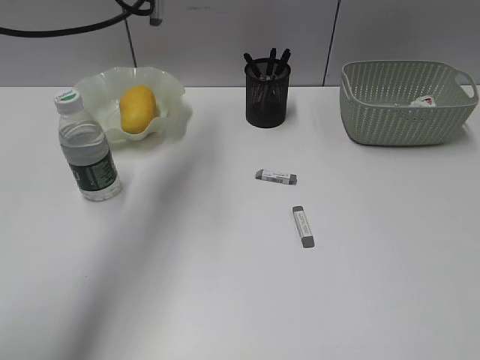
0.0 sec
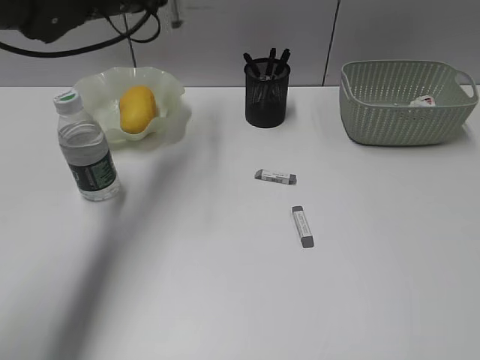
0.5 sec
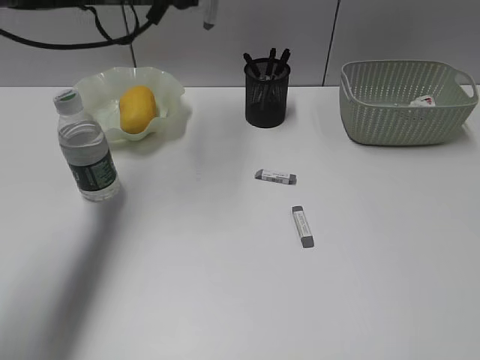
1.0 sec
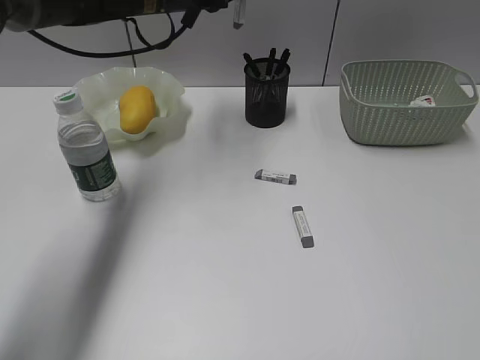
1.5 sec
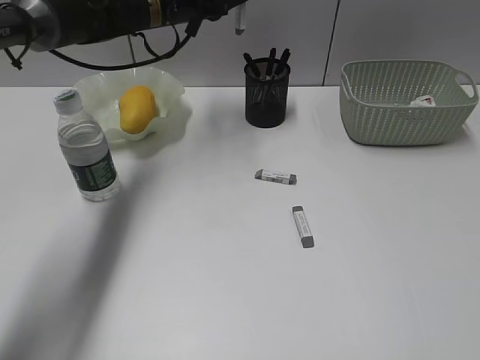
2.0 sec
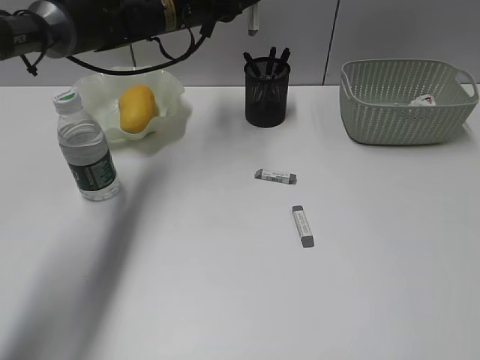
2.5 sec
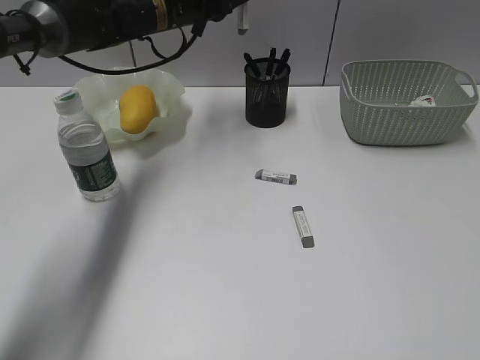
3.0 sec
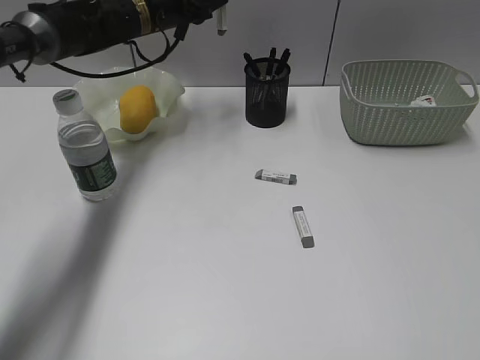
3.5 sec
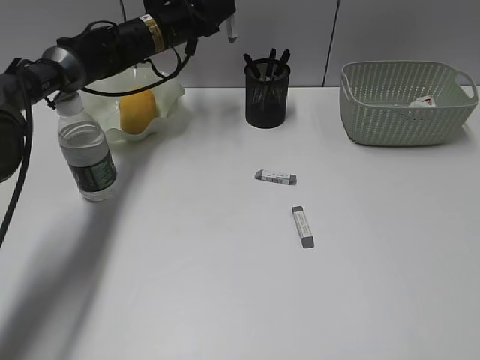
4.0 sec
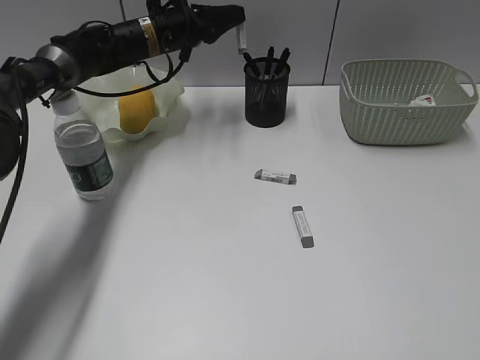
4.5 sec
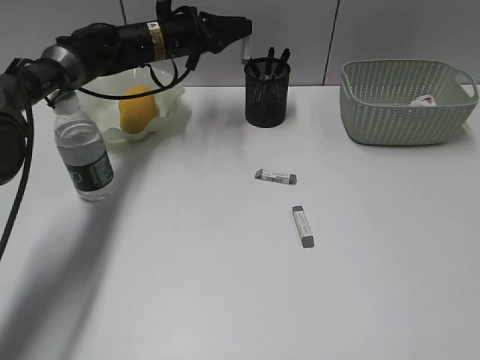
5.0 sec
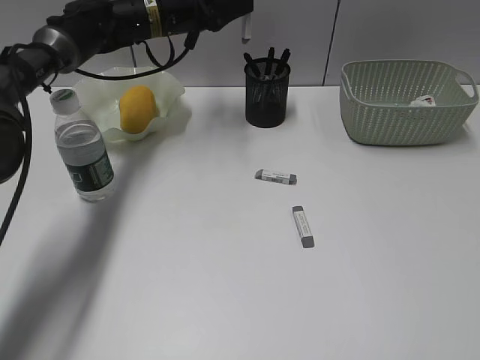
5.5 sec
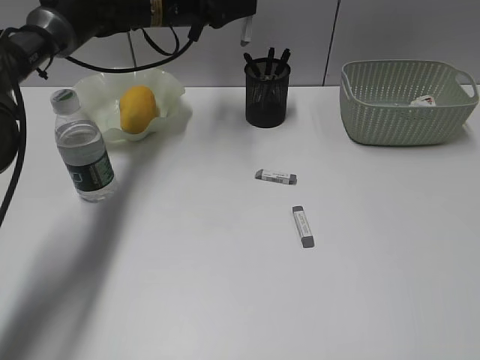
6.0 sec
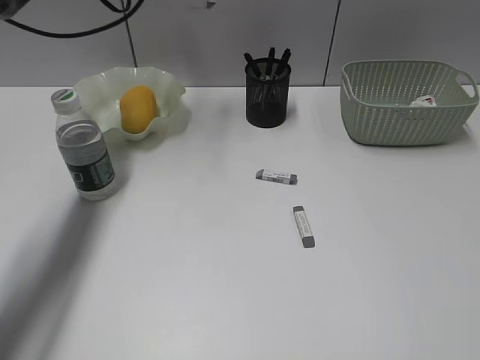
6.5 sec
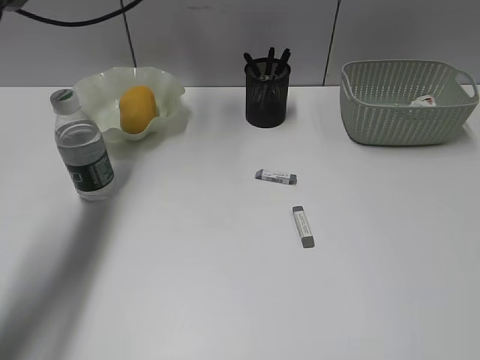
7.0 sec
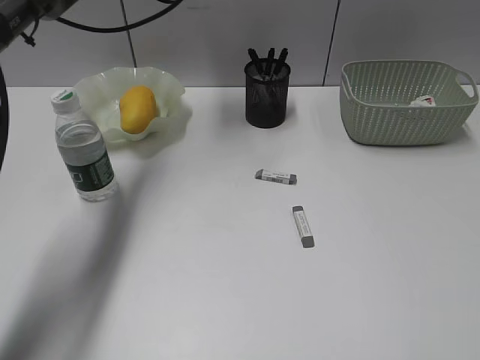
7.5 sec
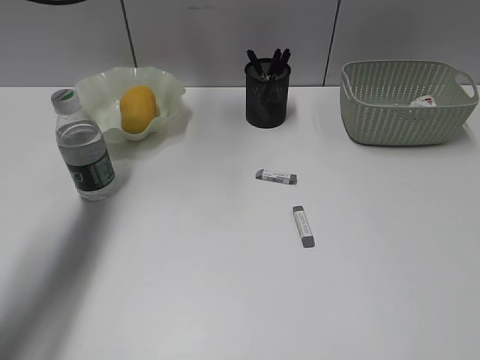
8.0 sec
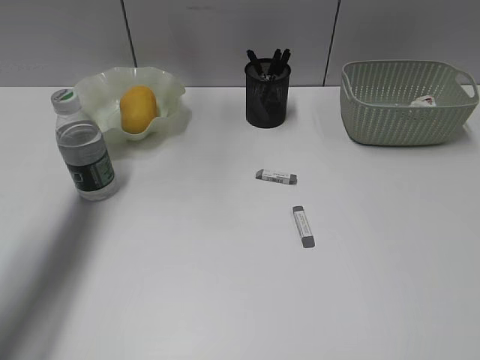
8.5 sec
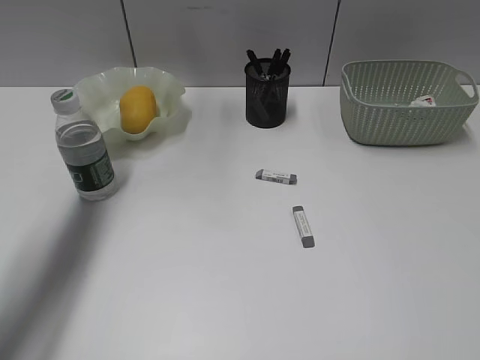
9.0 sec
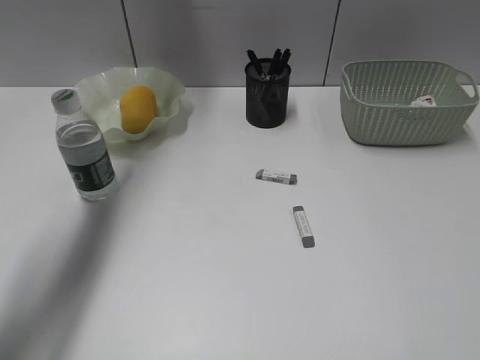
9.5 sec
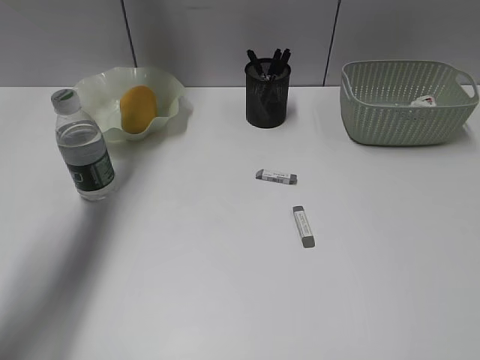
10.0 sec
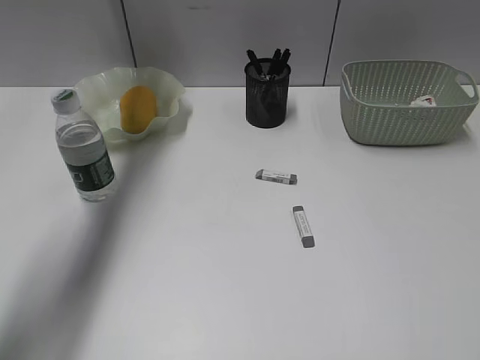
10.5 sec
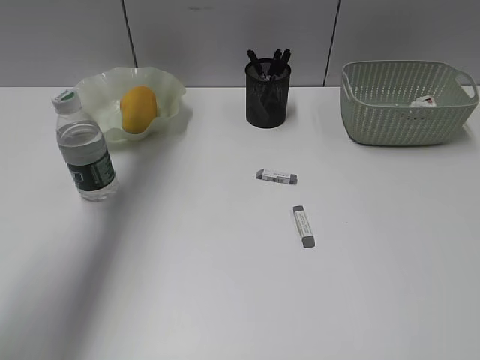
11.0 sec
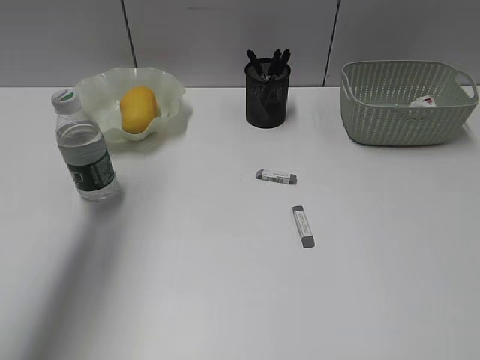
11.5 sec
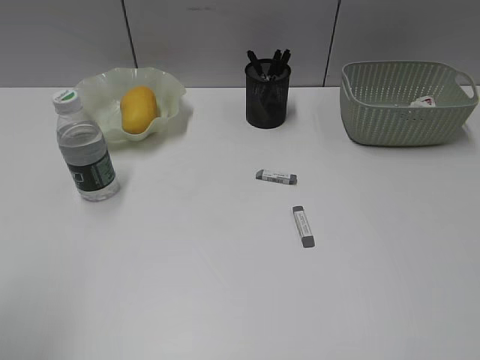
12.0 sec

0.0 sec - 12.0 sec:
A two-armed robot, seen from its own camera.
Step, 0.0 sec - 7.5 sec: Place the eraser in pen holder with left gripper.
0.0 sec - 2.0 sec: The left gripper travels forward and downward by approximately 15 cm.
2.0 sec - 4.0 sec: The left gripper heads downward, covering about 5 cm.
4.0 sec - 6.0 sec: The left gripper ends up about 5 cm from where it was.
6.0 sec - 8.0 sec: The left gripper is displaced upward by some 10 cm, and opens, then closes once more.
8.0 sec - 10.0 sec: The left gripper moves to the left, some 5 cm, and closes its fingers.
10.0 sec - 12.0 sec: The left gripper shifts about 50 cm backward, and opens up.

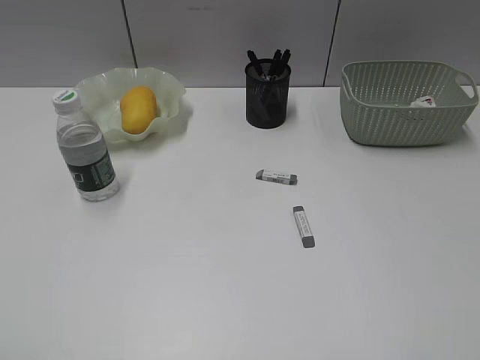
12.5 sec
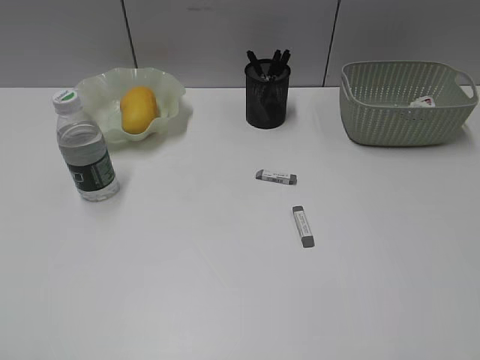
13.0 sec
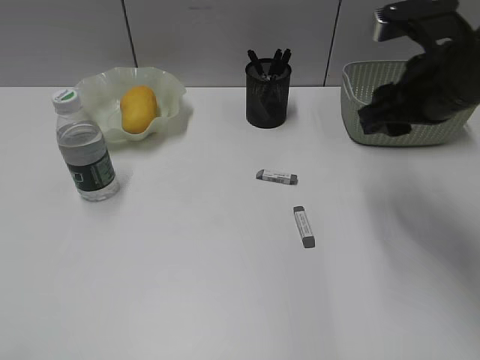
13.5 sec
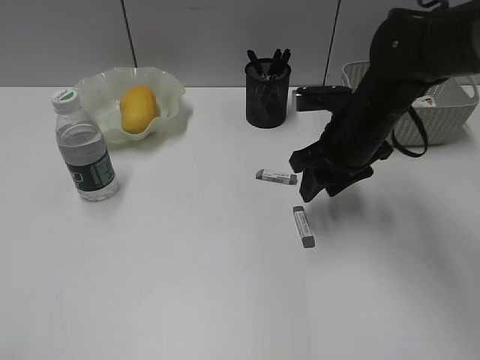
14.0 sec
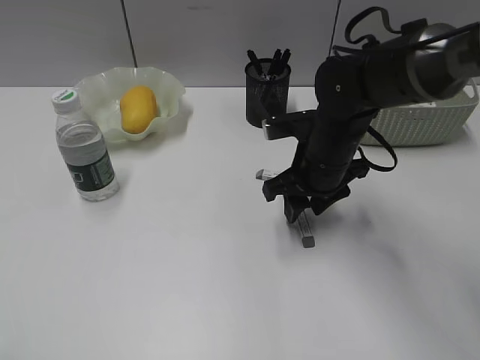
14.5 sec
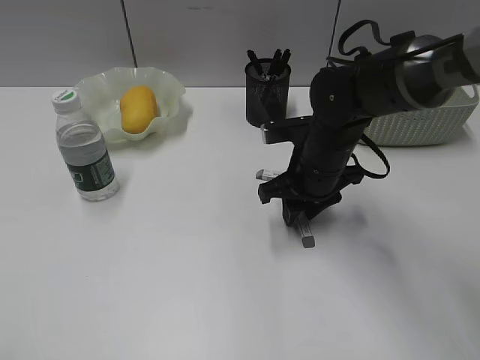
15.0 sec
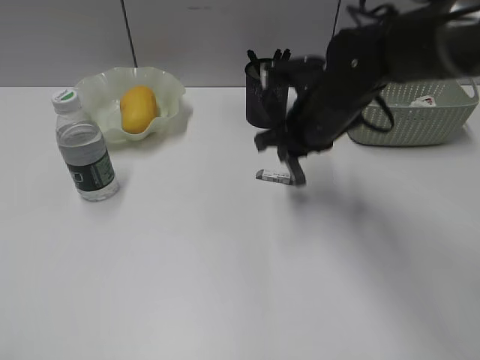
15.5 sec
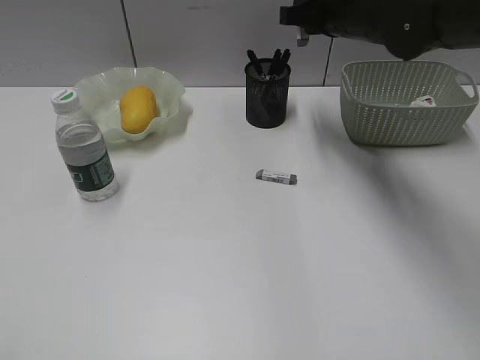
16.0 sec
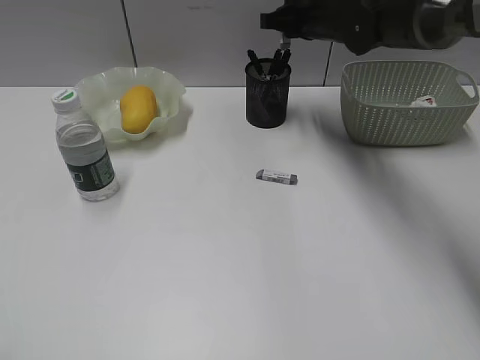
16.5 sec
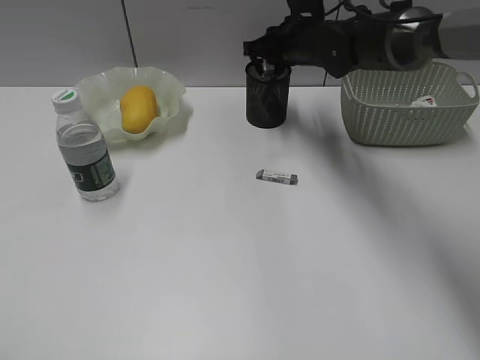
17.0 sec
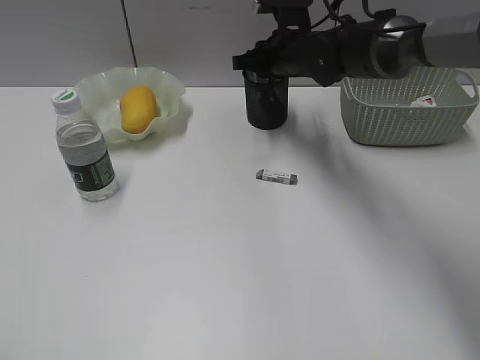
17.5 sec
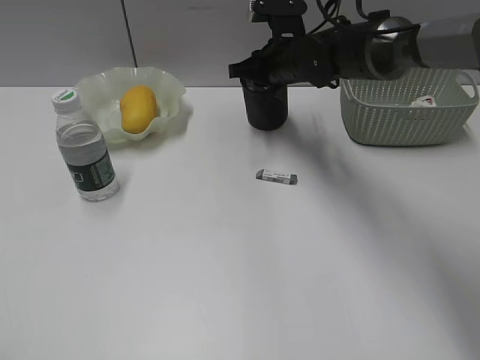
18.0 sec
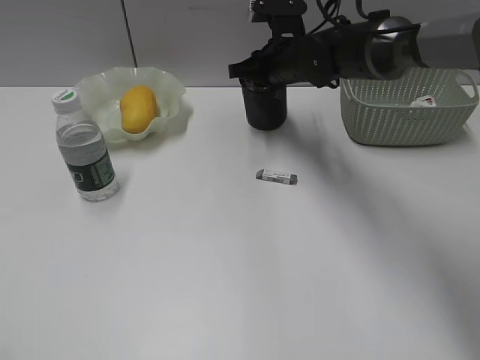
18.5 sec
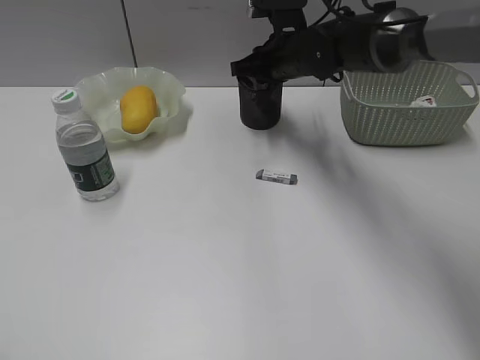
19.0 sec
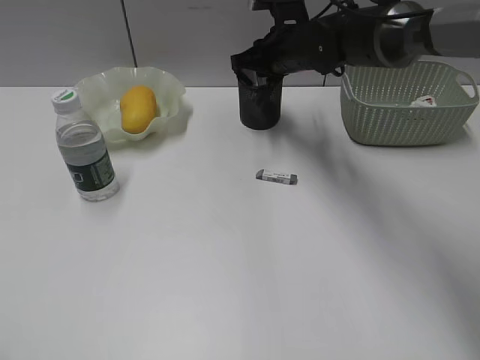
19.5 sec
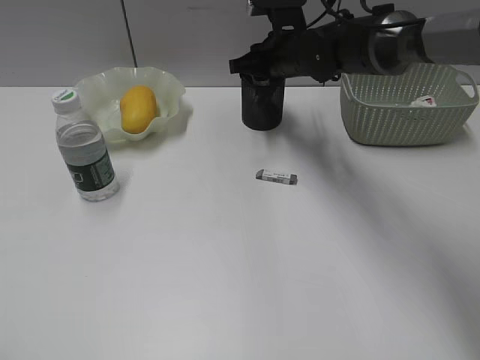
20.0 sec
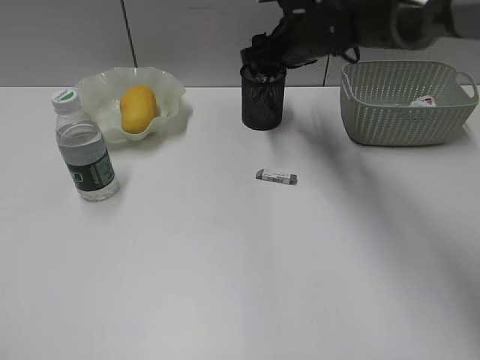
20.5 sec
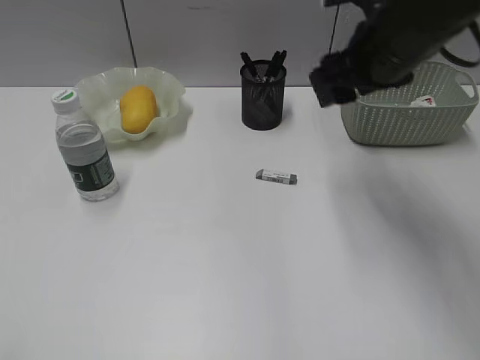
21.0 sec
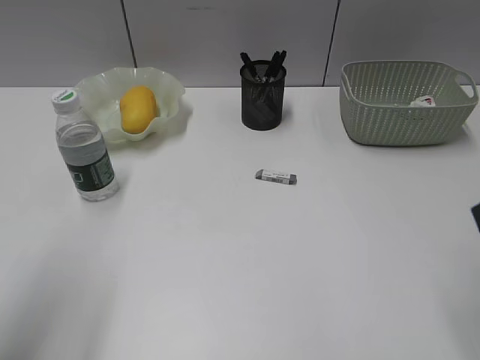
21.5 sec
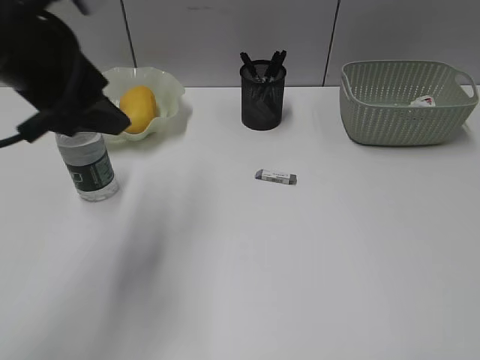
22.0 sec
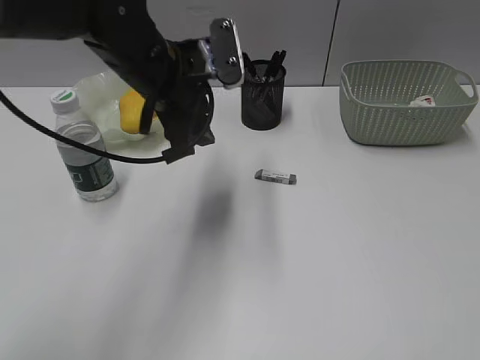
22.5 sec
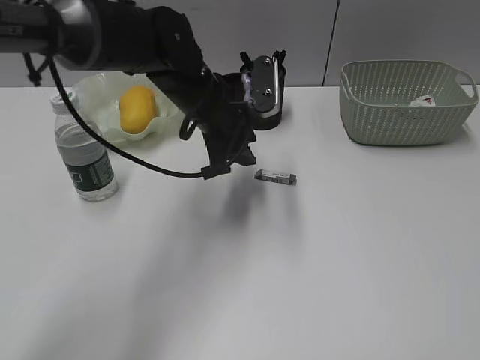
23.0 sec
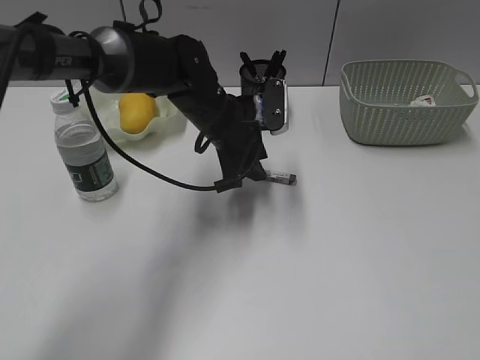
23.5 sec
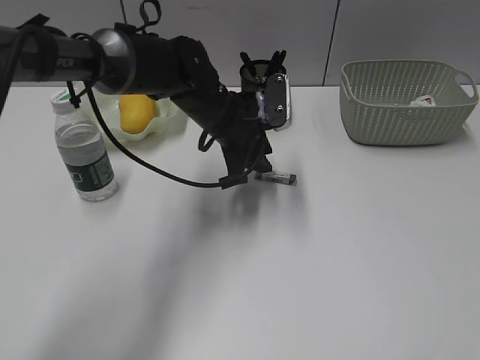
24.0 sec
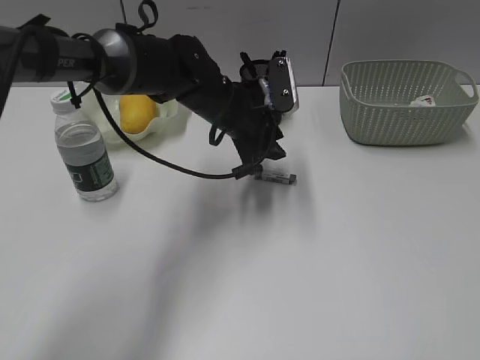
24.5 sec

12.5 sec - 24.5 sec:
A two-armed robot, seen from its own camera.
Step, 12.5 sec - 15.0 sec: Grasp the eraser with right gripper.
Step, 15.5 sec - 20.5 sec: Place the eraser in pen holder with right gripper.
12.5 sec - 14.5 sec: The right gripper shifts about 40 cm forward, to the left and downward.
14.5 sec - 16.5 sec: The right gripper travels forward and upward by roughly 20 cm, and closes up.
16.5 sec - 18.5 sec: The right gripper heads downward, covering approximately 5 cm.
18.5 sec - 20.5 sec: The right gripper opens its fingers.
20.5 sec - 22.5 sec: The left gripper travels forward and to the right by some 40 cm. Meanwhile the right gripper heads backward and to the right, covering approximately 50 cm.
22.5 sec - 24.5 sec: The left gripper is displaced downward, to the right and forward by roughly 10 cm.

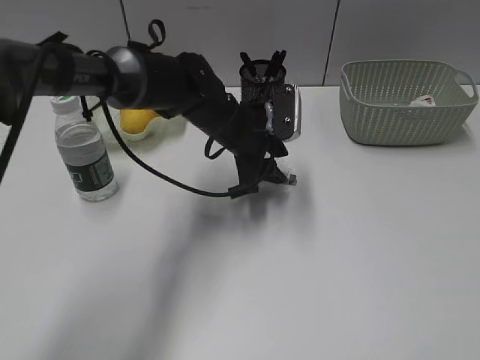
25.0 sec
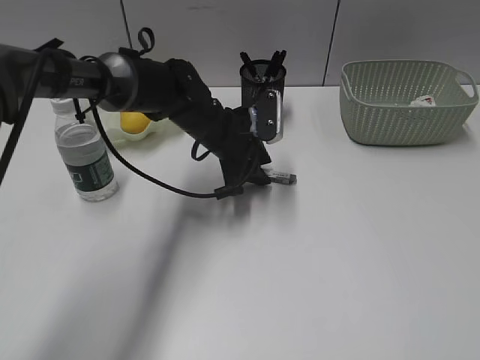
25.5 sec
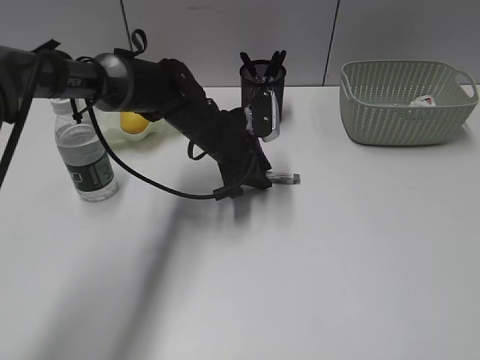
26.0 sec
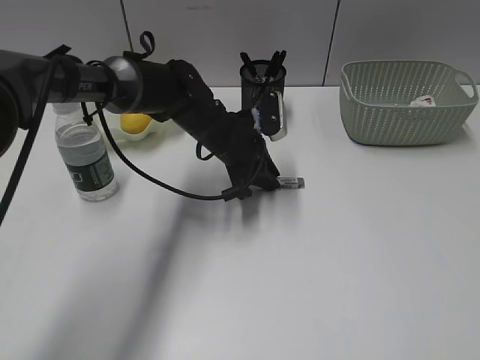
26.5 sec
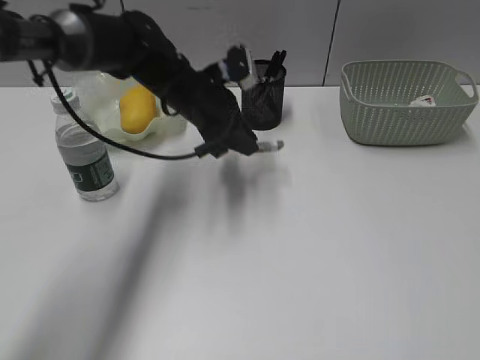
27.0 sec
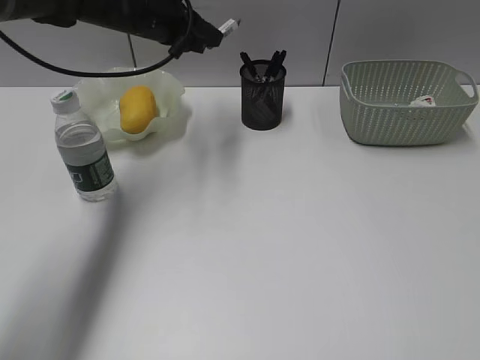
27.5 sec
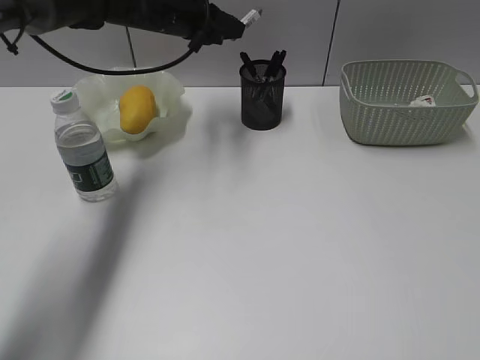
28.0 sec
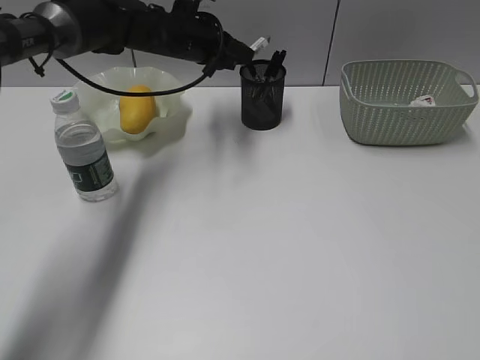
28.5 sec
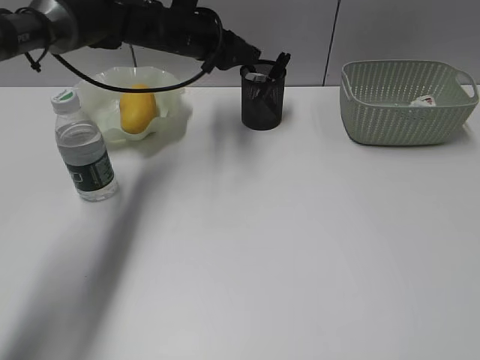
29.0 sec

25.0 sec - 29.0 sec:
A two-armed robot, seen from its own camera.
25.0 sec - 27.0 sec: The left gripper moves to the left, roughly 5 cm, and closes.
27.0 sec - 29.0 sec: The left gripper goes some 10 cm forward, and opens.
